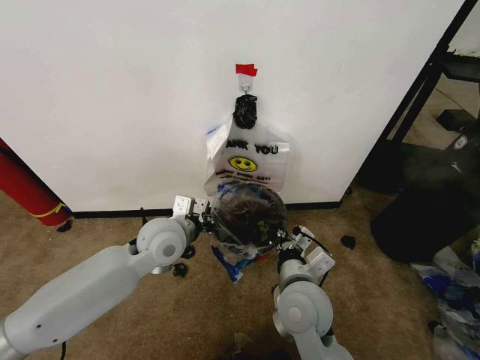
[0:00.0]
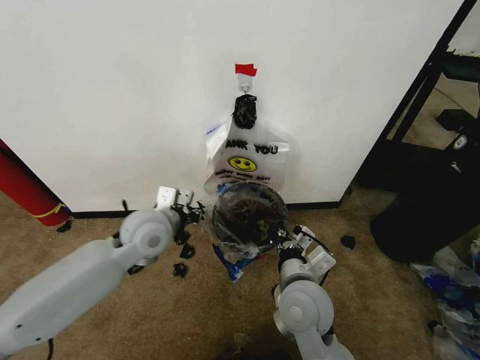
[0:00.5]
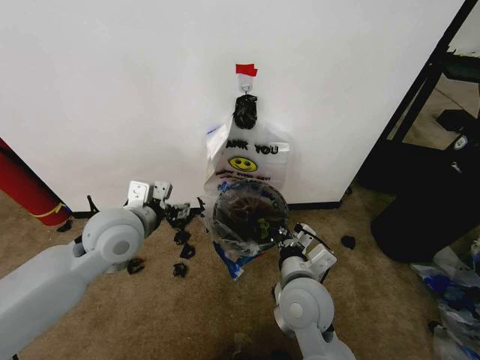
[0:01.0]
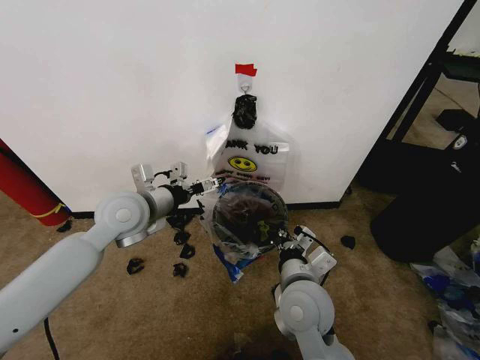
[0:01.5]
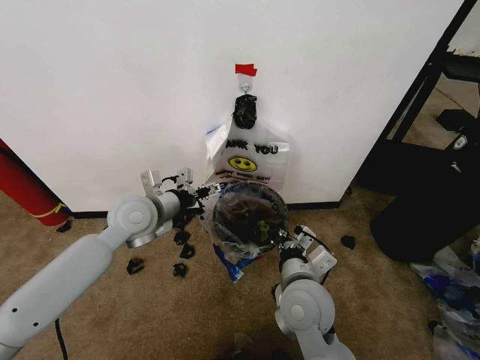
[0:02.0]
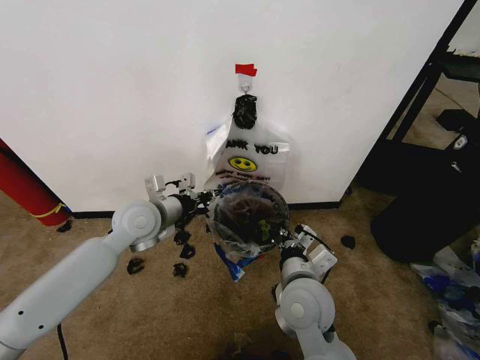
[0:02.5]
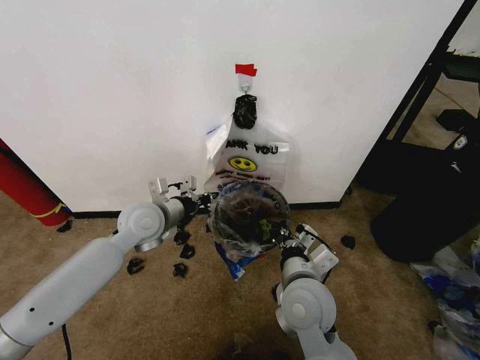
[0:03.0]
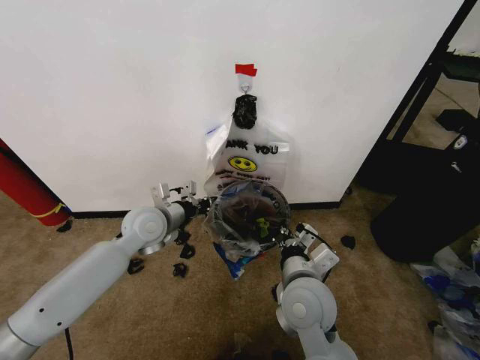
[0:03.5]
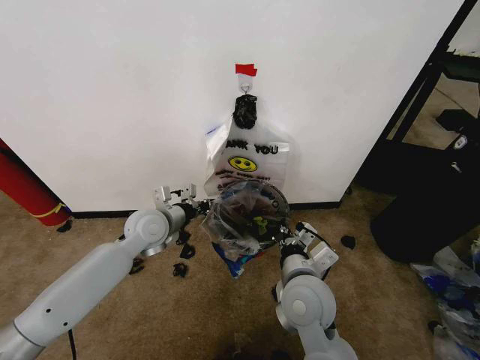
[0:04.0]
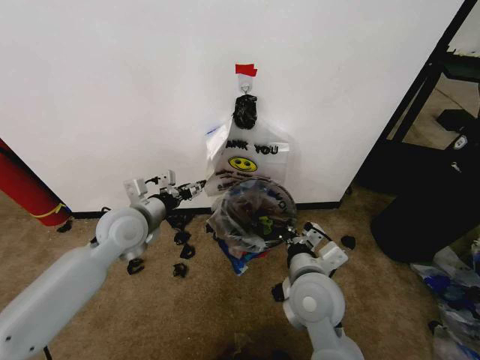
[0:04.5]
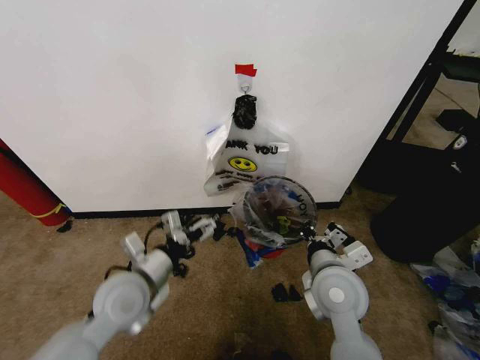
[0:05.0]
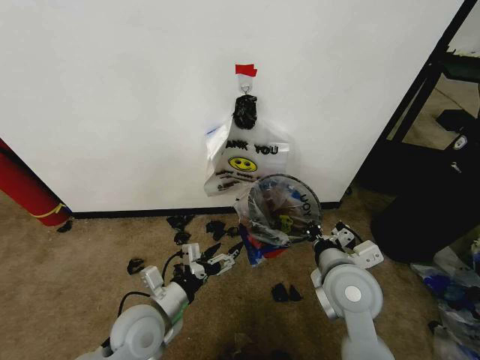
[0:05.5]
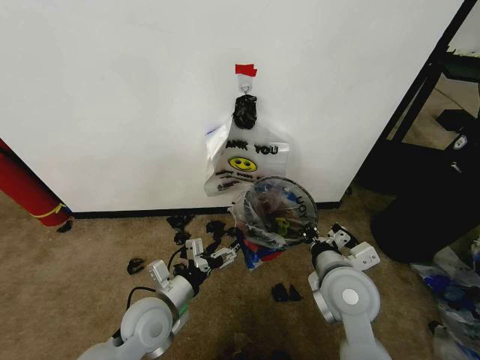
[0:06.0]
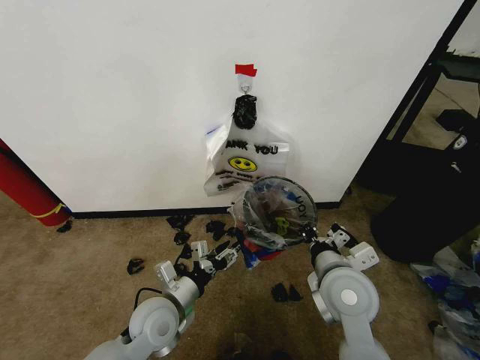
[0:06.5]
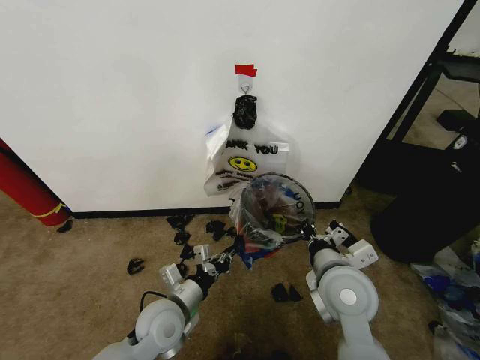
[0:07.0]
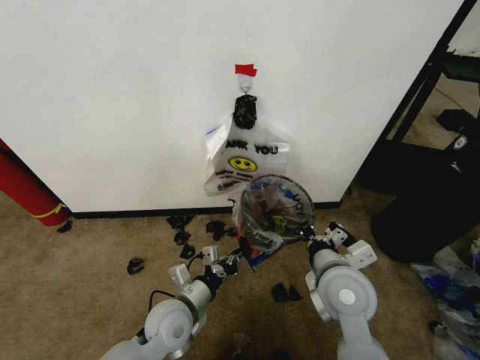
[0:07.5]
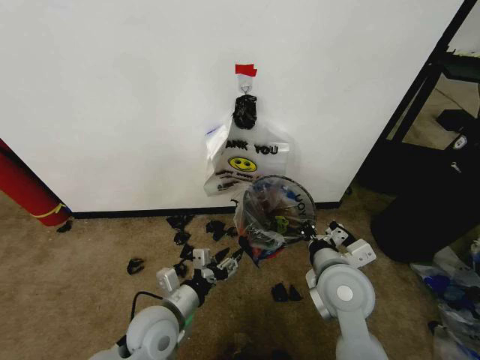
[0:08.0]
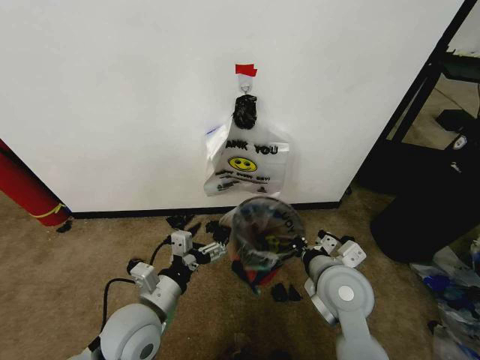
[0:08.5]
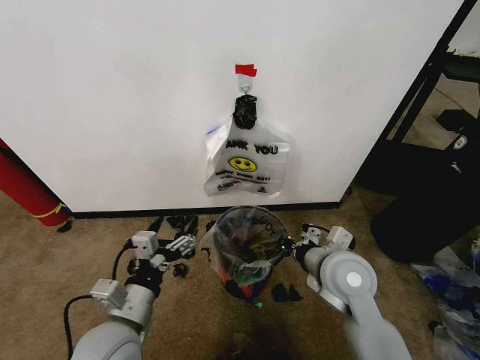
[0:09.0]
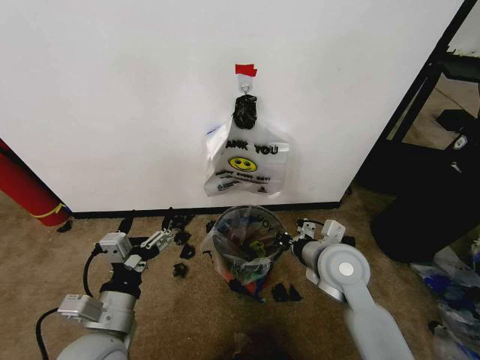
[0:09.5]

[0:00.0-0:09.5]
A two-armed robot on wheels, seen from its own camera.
Task of the whole recording: Pick up the garbage bag from the wall and place it over the trash bin.
0:00.0 to 0:02.0: The left gripper shifts roughly 5 cm to the left, and opens up.
0:02.0 to 0:04.0: The left gripper heads downward, covering about 5 cm, and closes.
0:04.0 to 0:05.5: The left gripper heads backward and downward, covering approximately 20 cm, and opens up. The right gripper travels to the right by about 10 cm.
0:05.5 to 0:07.5: The left gripper ends up approximately 5 cm from where it was, and closes up.
0:07.5 to 0:09.5: The right gripper goes roughly 5 cm forward; the left gripper heads upward, backward and to the left, covering roughly 15 cm, and opens up.

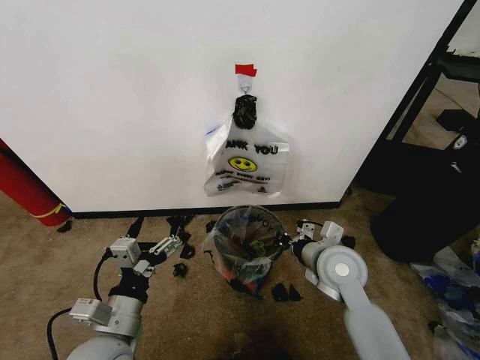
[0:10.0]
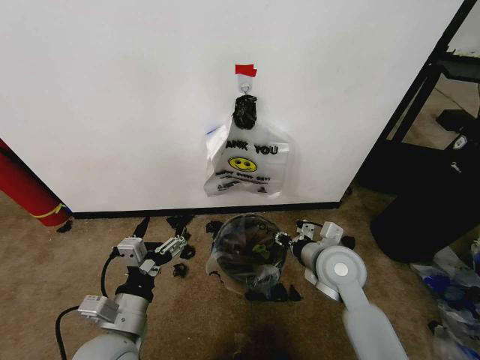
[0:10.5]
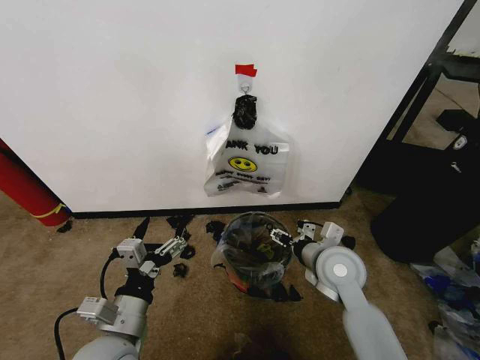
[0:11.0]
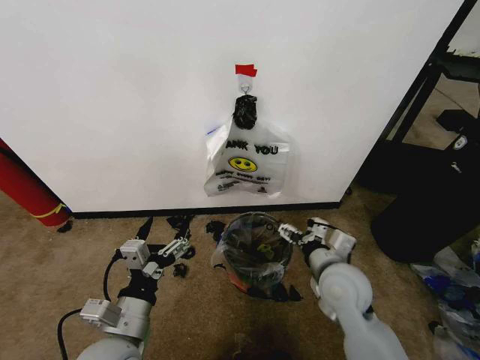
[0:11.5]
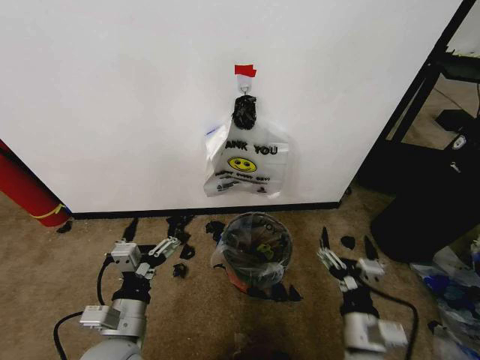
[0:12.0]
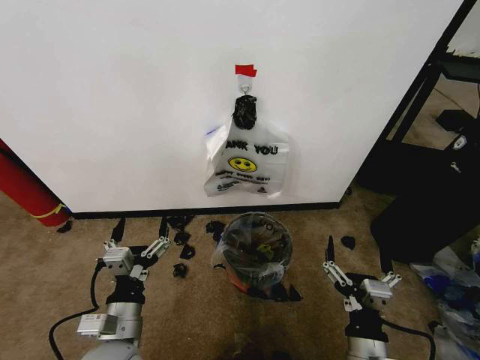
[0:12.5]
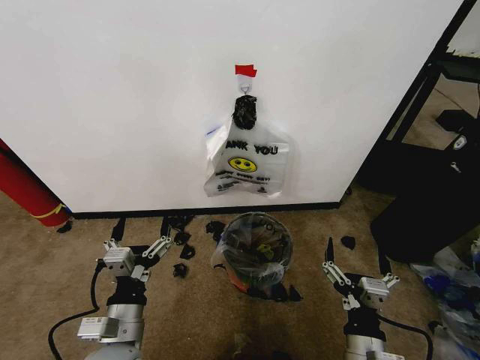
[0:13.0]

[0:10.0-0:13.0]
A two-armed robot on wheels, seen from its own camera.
Task of the whole recording: Pick up the garbage bag from the wall and place it over the trash bin.
0:10.0 to 0:11.5: The right gripper opens its fingers.
0:11.5 to 0:13.0: The right gripper heads backward, covering roughly 15 cm.

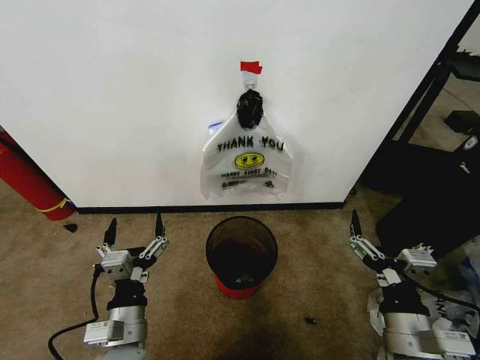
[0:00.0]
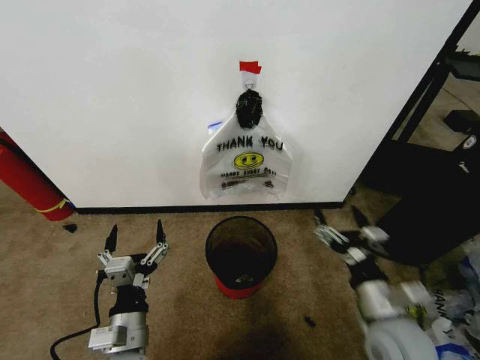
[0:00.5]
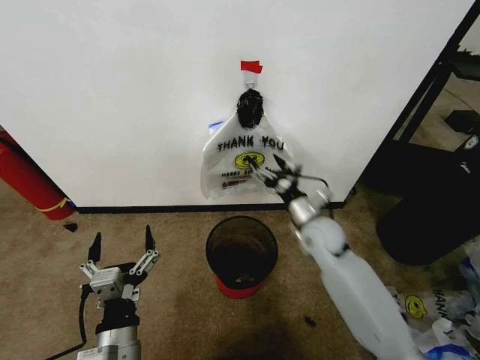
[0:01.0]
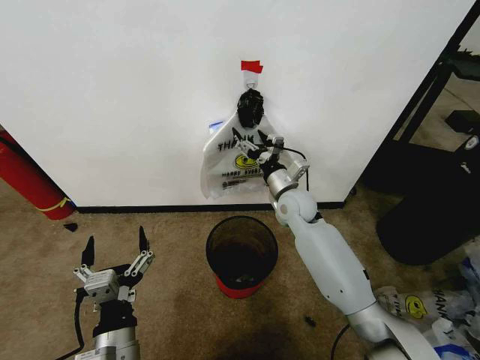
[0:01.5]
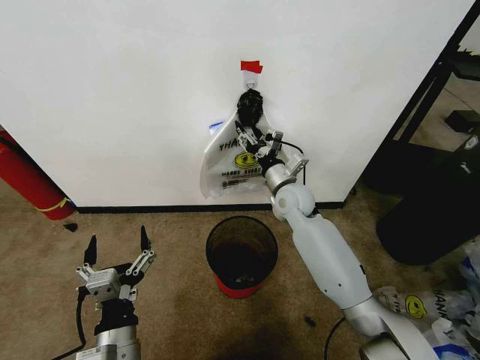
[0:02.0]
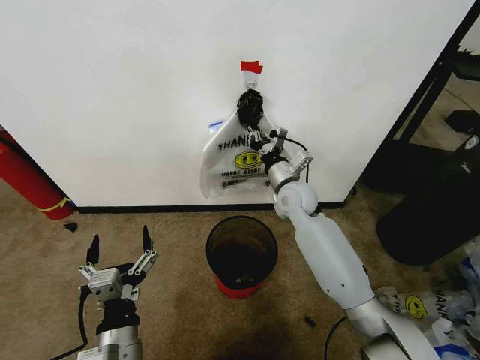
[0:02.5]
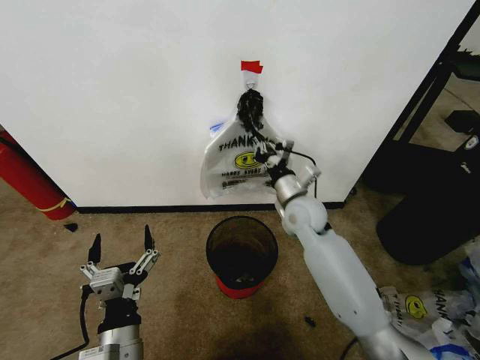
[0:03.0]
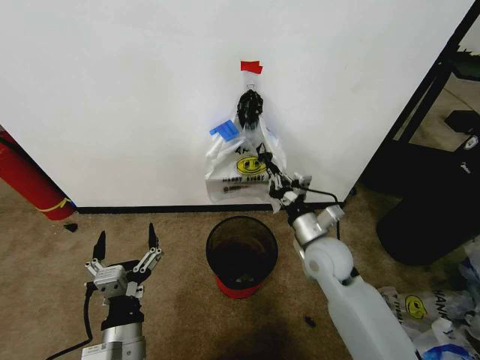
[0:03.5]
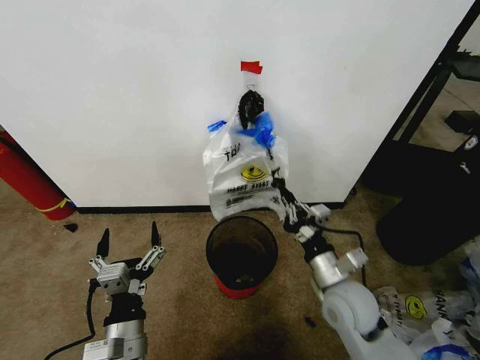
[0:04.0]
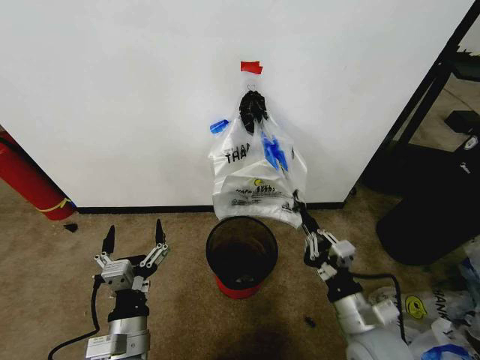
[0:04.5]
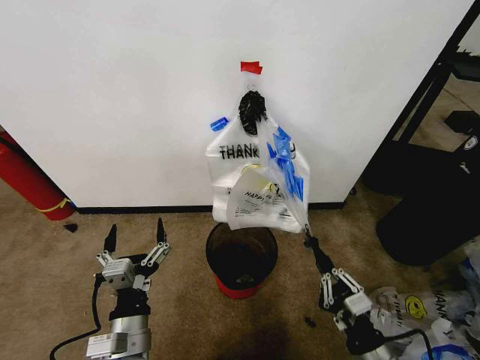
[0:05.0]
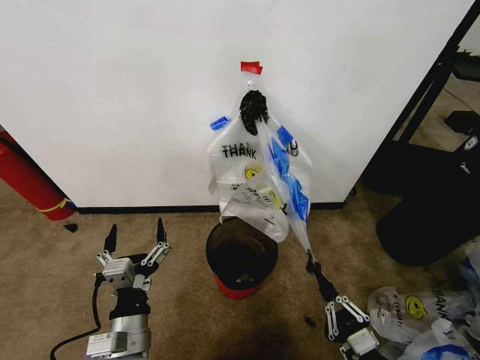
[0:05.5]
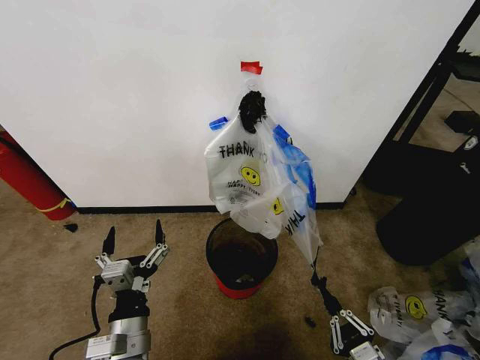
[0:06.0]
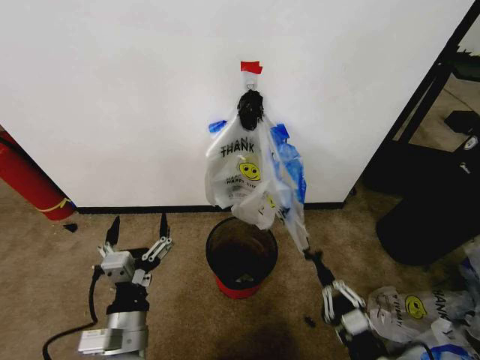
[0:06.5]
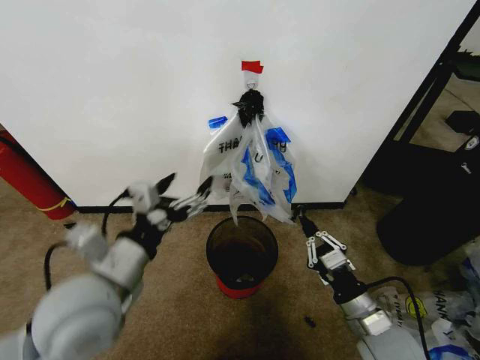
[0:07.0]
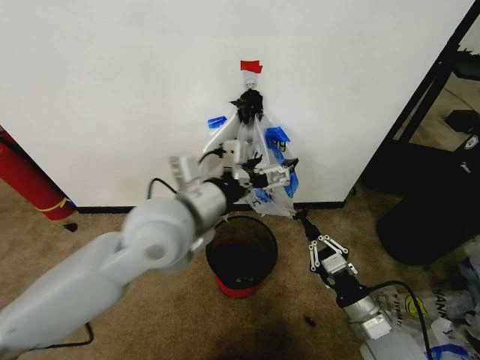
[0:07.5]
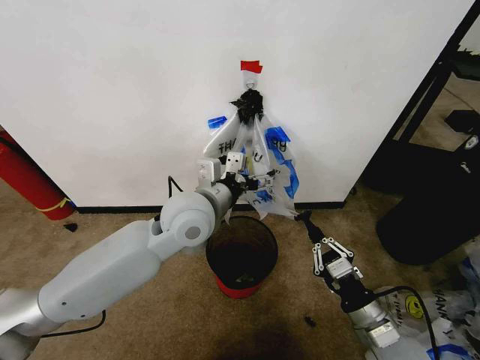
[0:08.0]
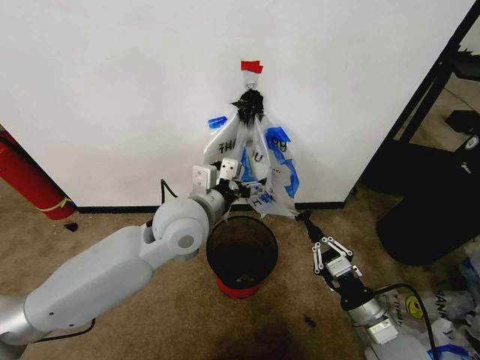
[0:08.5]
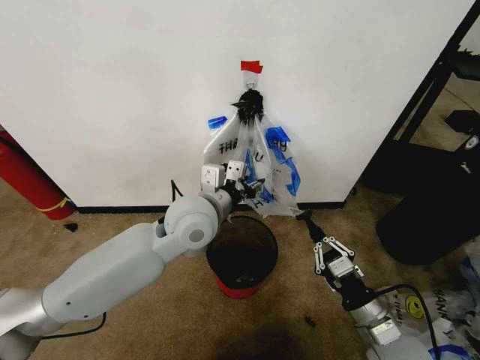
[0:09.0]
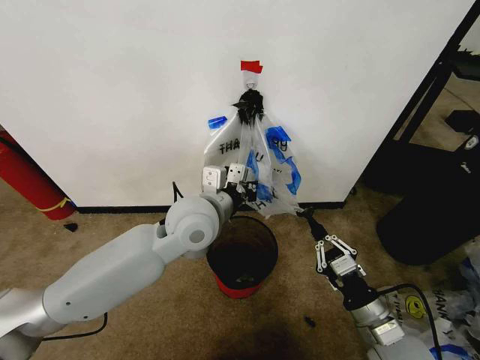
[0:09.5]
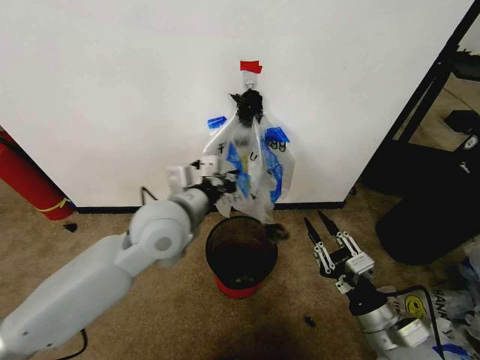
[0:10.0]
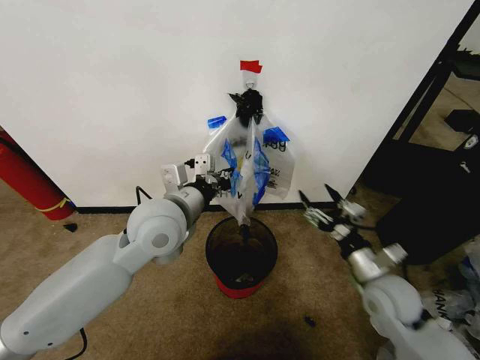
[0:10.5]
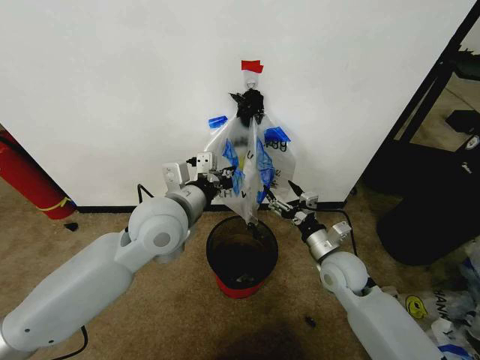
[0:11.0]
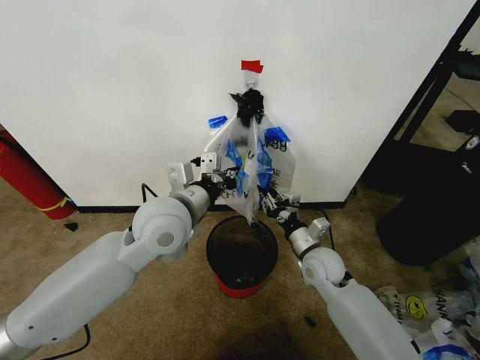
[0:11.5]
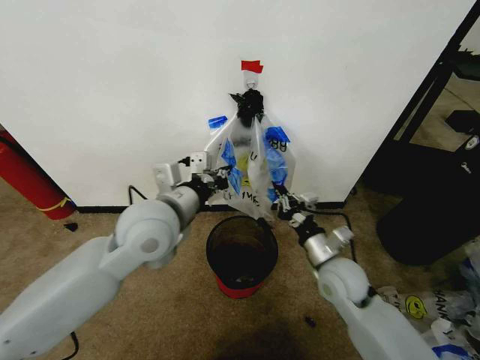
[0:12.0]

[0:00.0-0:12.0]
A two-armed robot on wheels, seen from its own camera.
Task of the whole recording: Pick up the garbage bag from the wall and place it over the trash bin.
0:02.0 to 0:04.0: The right gripper goes approximately 25 cm backward, and closes its fingers.
0:04.0 to 0:06.0: The right gripper moves backward, downward and to the right, some 25 cm.
0:06.0 to 0:08.0: The left gripper heads forward, upward and to the right, covering roughly 30 cm. The right gripper heads forward and upward, covering roughly 15 cm.
0:08.0 to 0:10.0: The left gripper closes up.
0:10.0 to 0:12.0: The right gripper shifts approximately 15 cm forward, and opens, then closes again.

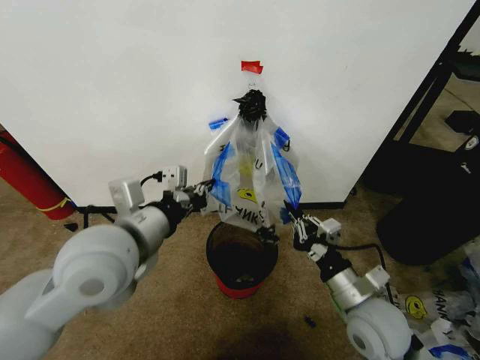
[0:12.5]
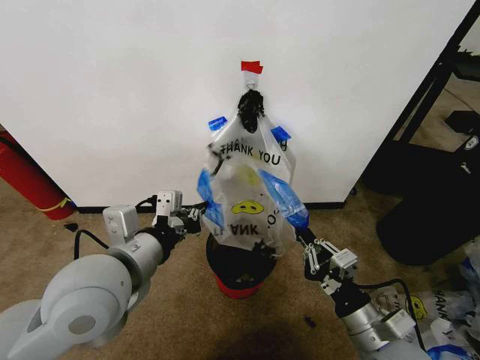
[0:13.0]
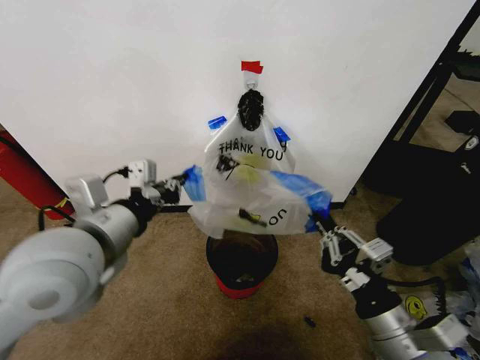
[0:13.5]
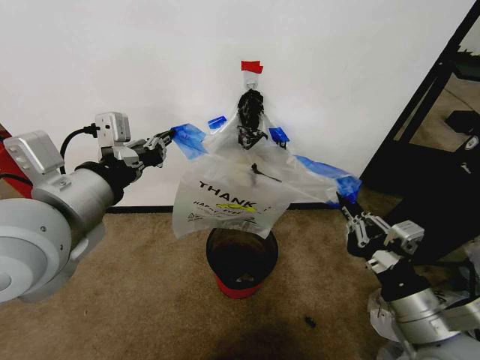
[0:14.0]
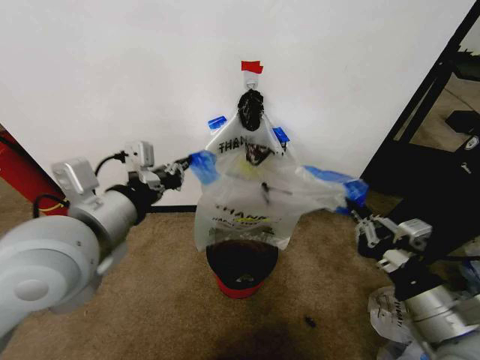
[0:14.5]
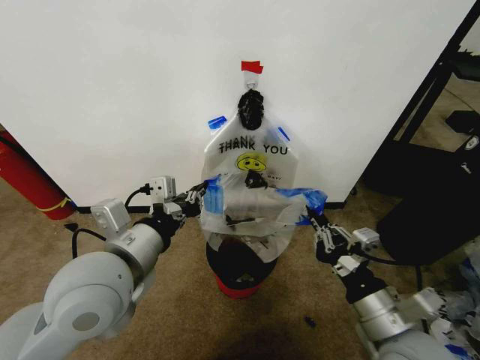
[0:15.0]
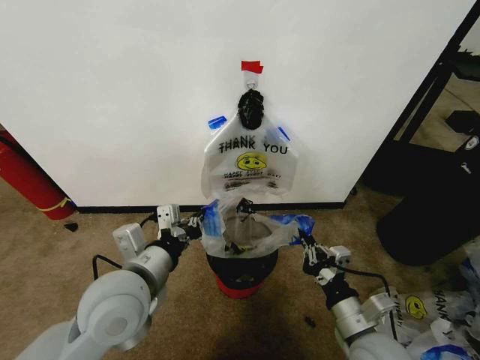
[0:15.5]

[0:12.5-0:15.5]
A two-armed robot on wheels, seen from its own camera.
Task of the whole recording: Pick up the garbage bag from the wall and place it over the trash bin.
0:12.5 to 0:14.0: The right gripper travels upward and backward by approximately 10 cm; the left gripper travels upward by approximately 10 cm.
0:14.0 to 0:15.5: Both grippers move downward, roughly 15 cm.
